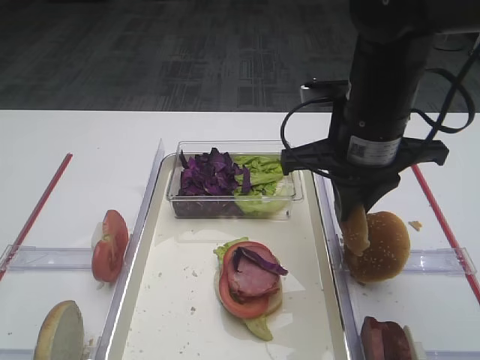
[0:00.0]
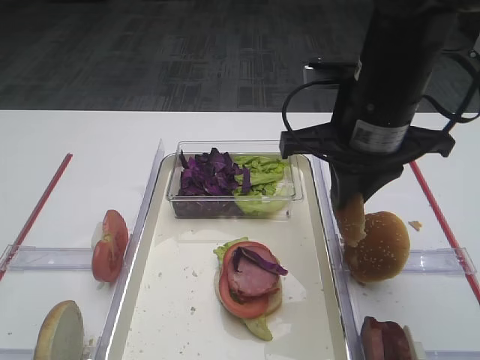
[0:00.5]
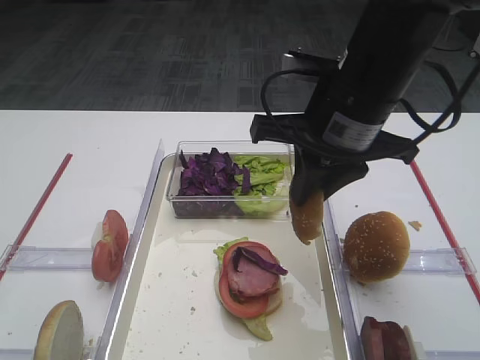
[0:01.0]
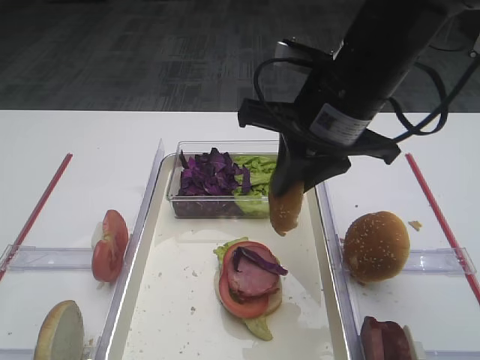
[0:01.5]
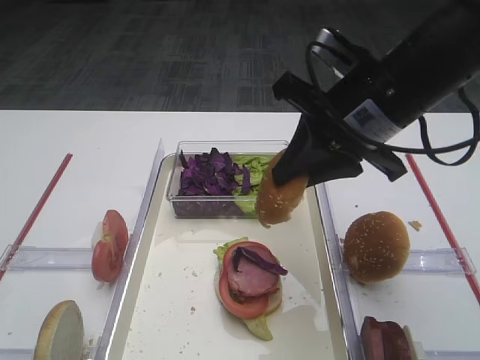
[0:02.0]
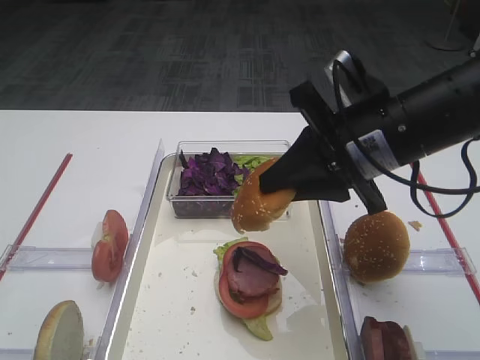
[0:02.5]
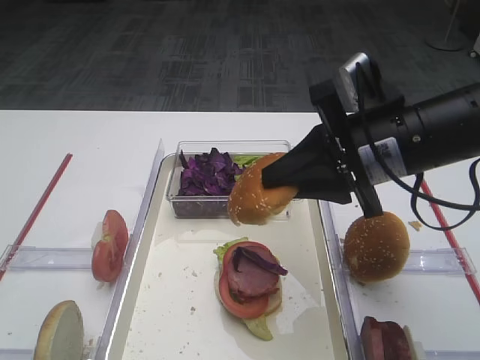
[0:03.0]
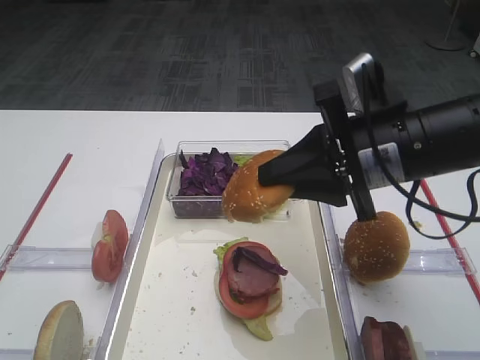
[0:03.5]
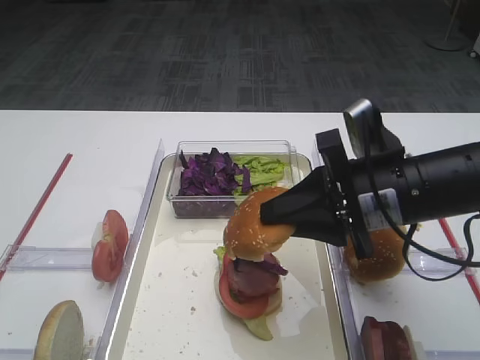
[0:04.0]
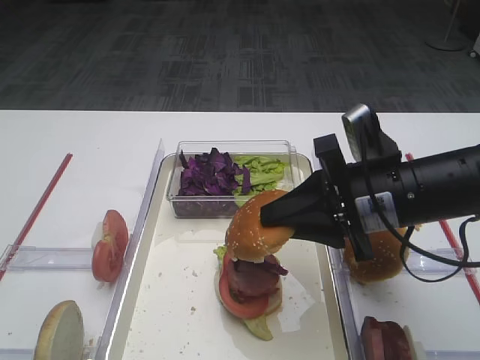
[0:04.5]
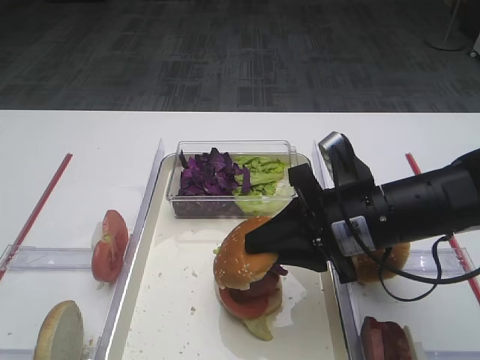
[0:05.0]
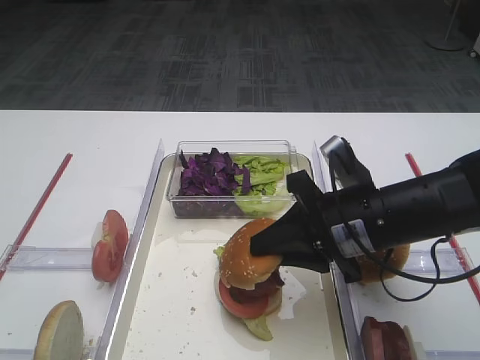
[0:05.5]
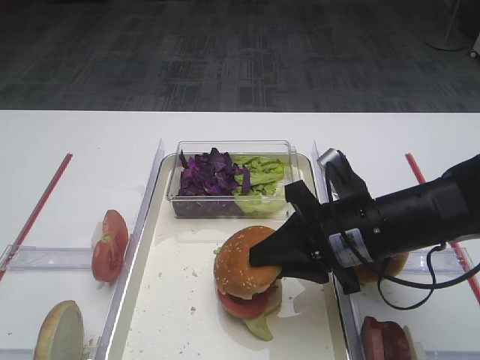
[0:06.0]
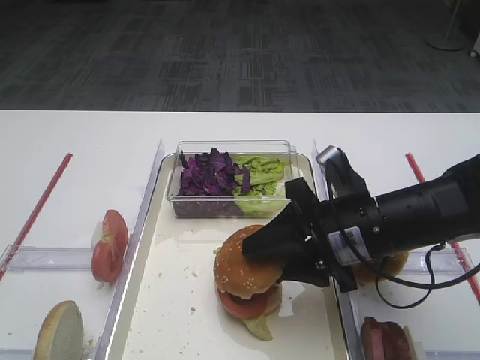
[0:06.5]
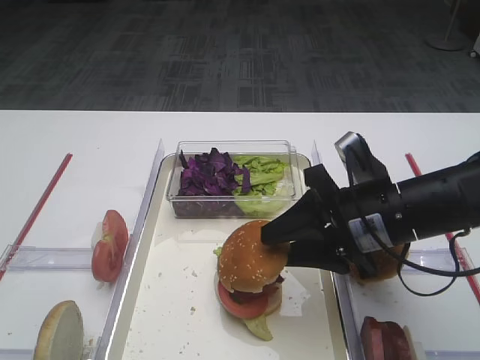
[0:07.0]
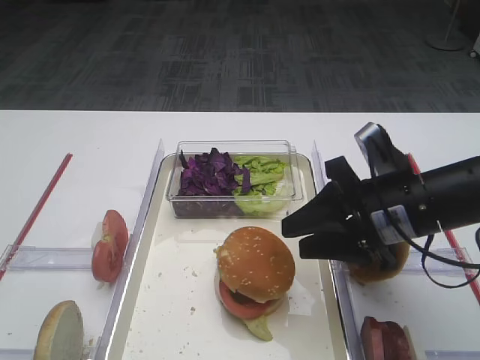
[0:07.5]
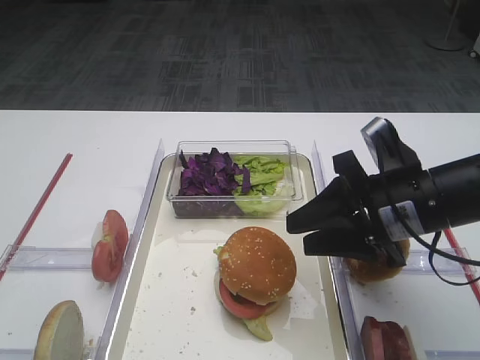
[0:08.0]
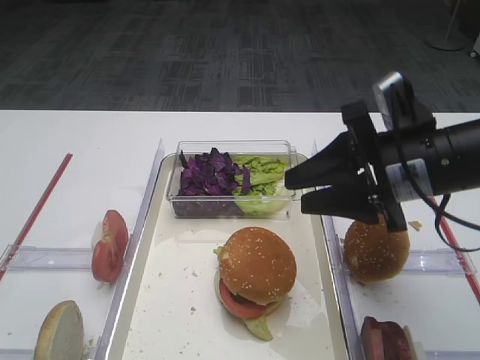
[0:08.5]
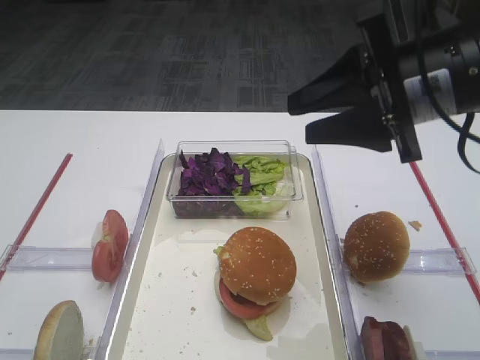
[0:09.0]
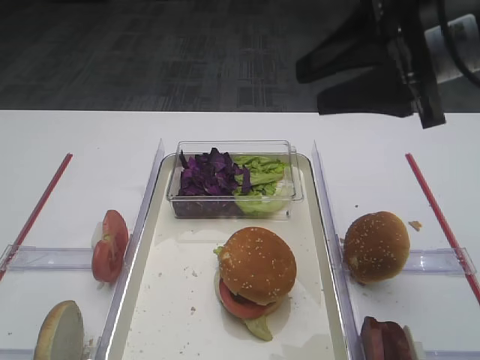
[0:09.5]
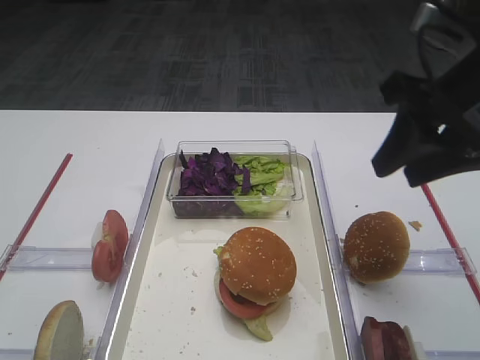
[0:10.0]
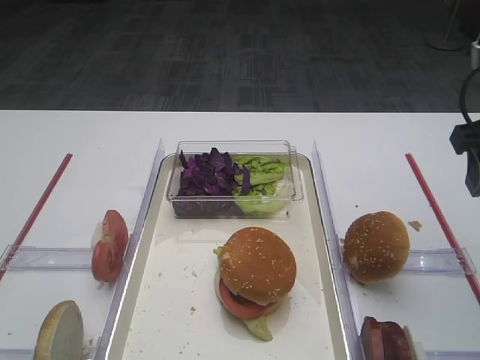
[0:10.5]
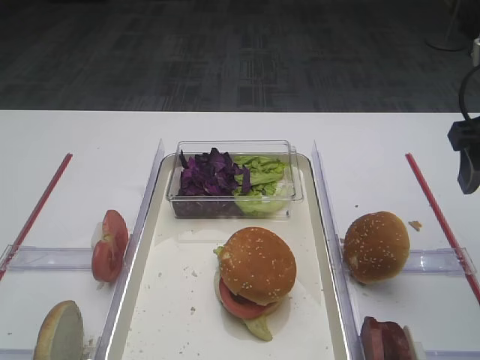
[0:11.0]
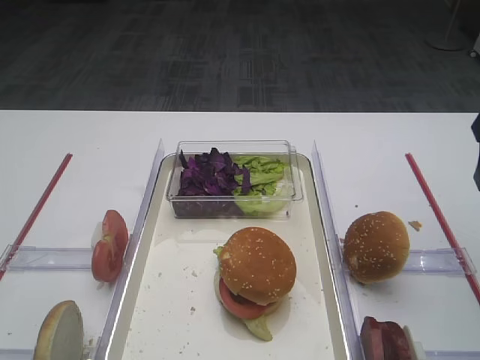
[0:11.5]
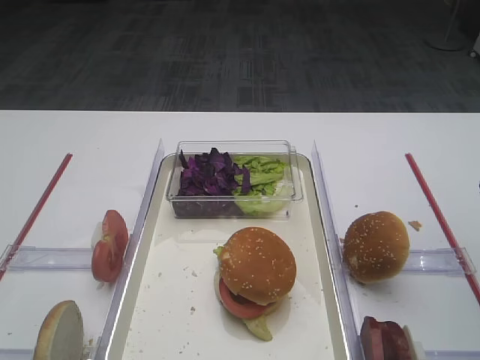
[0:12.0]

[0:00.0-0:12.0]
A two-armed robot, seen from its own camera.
Step, 0:00.0 to 0:08.0: Place the hamburger lid on the purple cabbage with the right gripper.
0:02.0 to 0:04.0: The right gripper heads downward, covering some 10 cm.
0:04.0 to 0:06.0: The right gripper heads downward, covering roughly 5 cm.
0:06.0 to 0:08.0: The right gripper ends up about 5 cm from where it was, and opens up.
0:08.0 to 0:10.0: The right gripper travels upward by some 15 cm.
0:10.0 to 0:12.0: The right gripper shifts some 10 cm to the right, and opens.

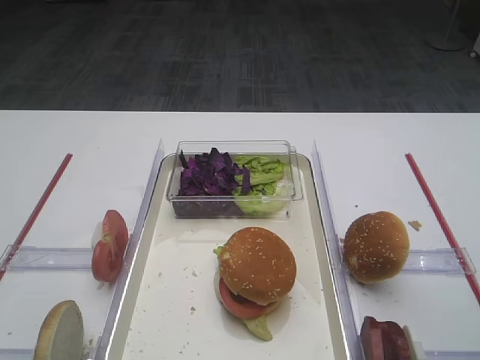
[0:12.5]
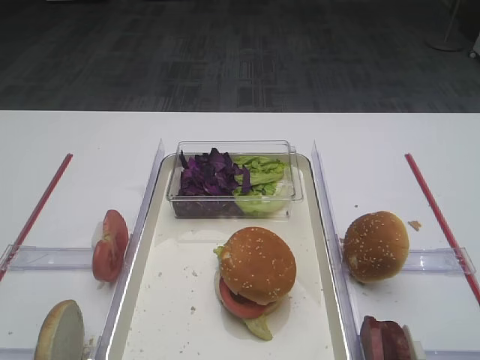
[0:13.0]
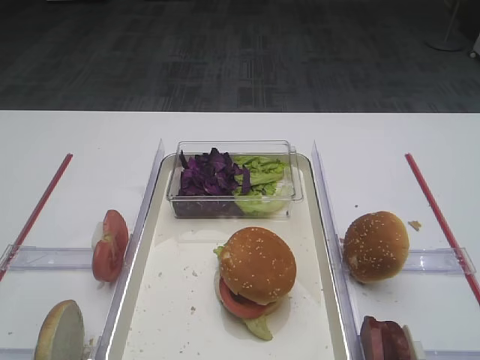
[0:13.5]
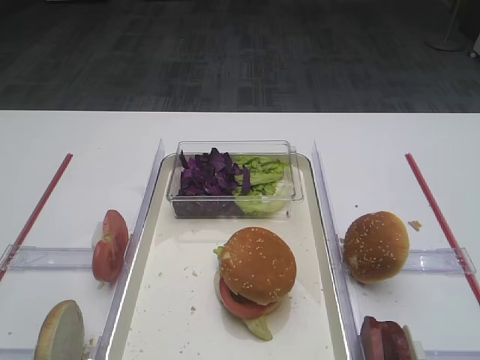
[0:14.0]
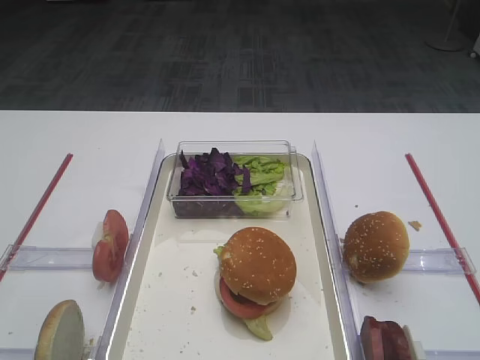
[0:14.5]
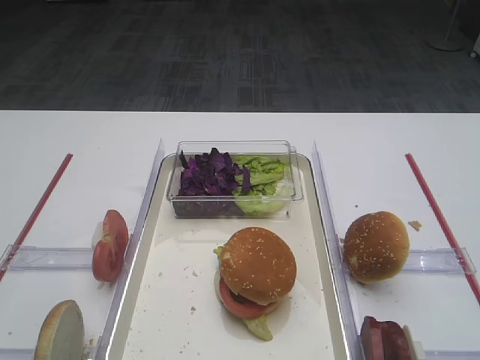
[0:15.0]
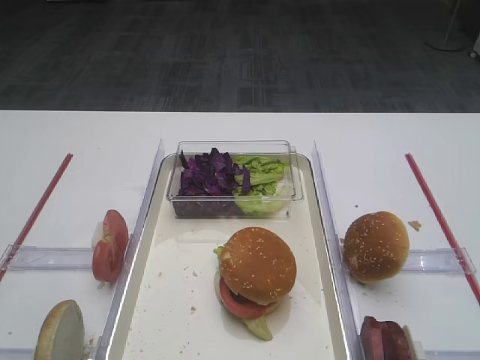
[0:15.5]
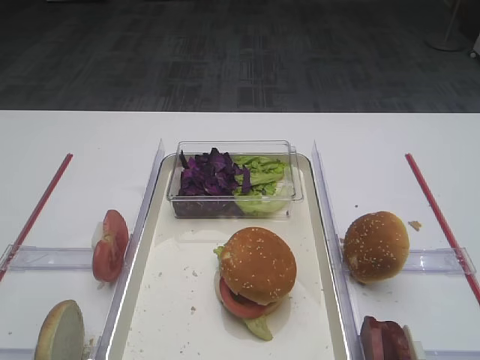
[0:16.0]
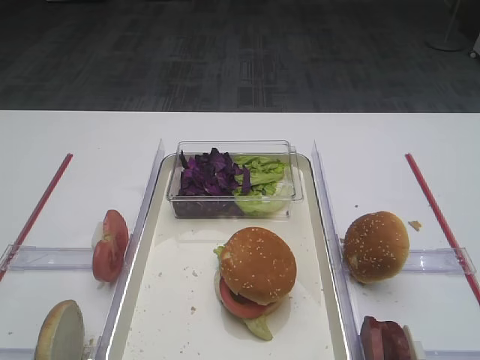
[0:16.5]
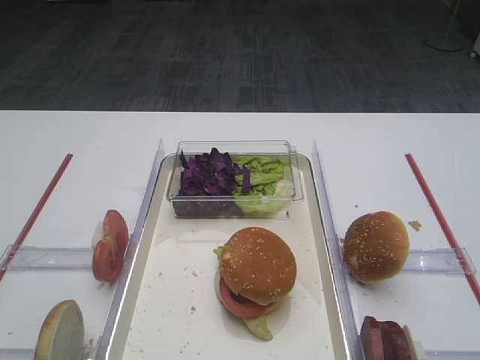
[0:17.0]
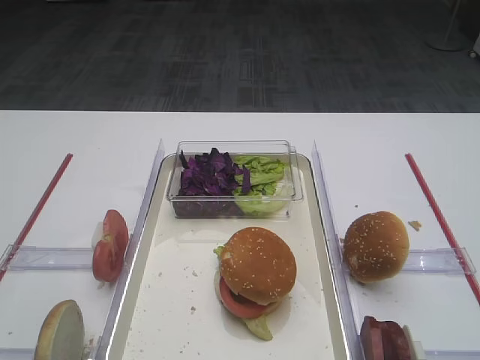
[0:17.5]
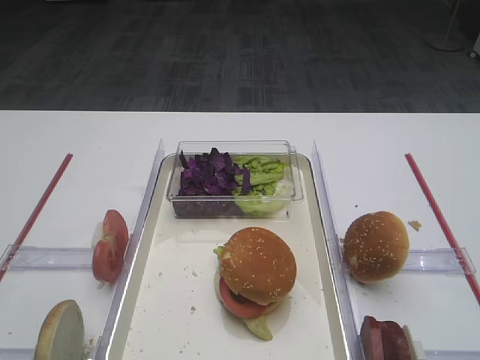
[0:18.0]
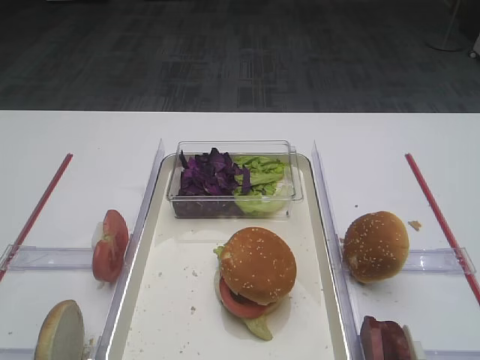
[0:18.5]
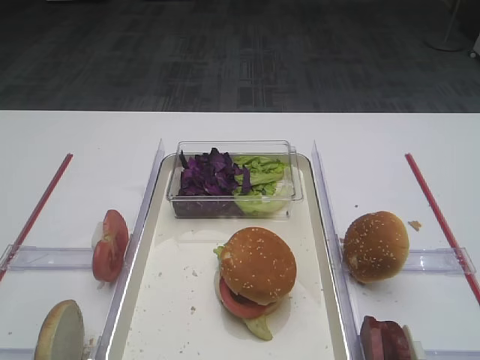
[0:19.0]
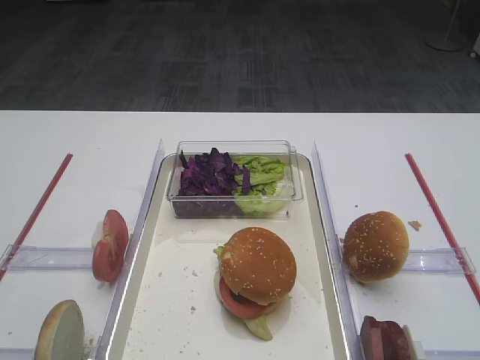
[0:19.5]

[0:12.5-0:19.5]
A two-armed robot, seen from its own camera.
0:14.5 to 0:17.5: The two grippers keep their place.

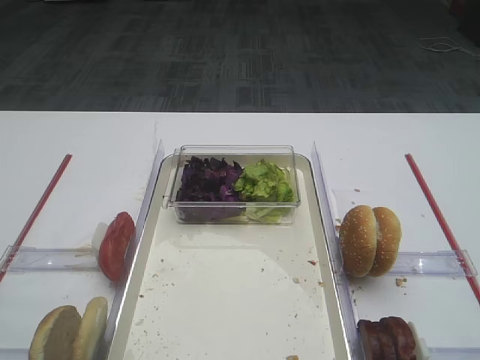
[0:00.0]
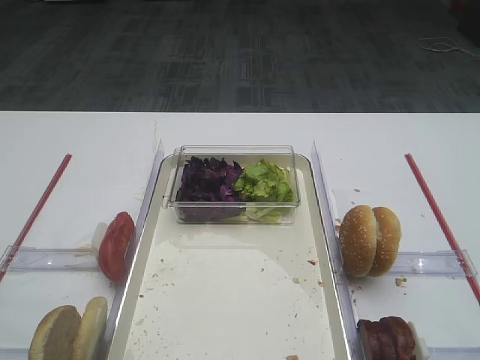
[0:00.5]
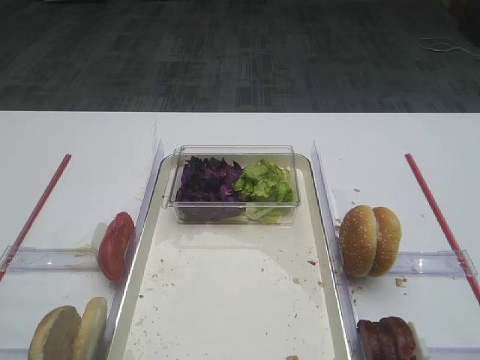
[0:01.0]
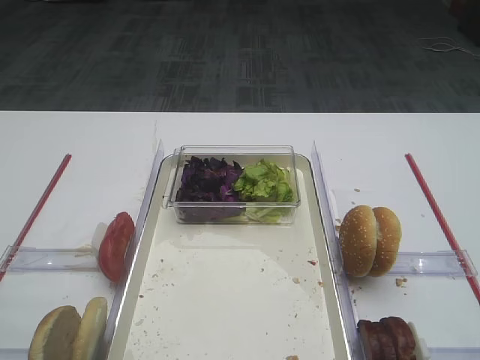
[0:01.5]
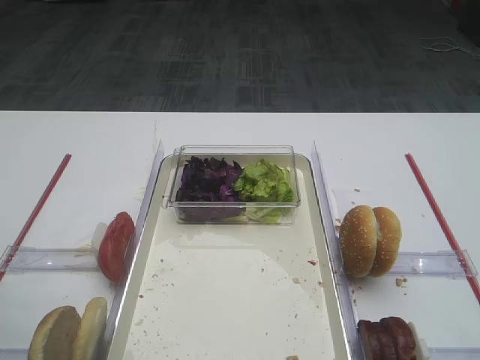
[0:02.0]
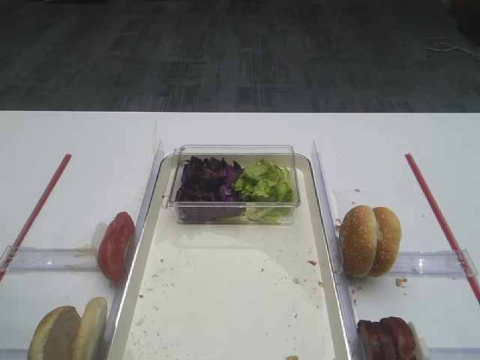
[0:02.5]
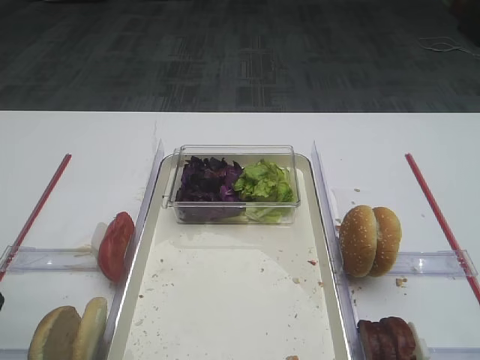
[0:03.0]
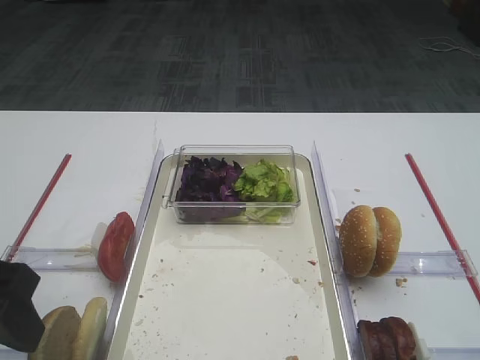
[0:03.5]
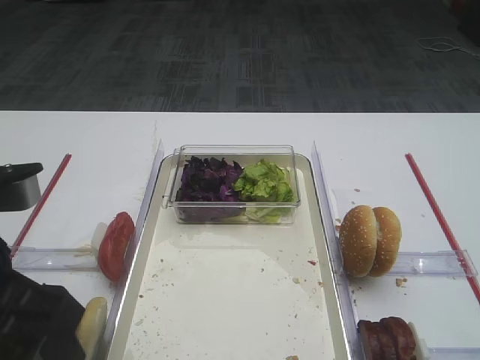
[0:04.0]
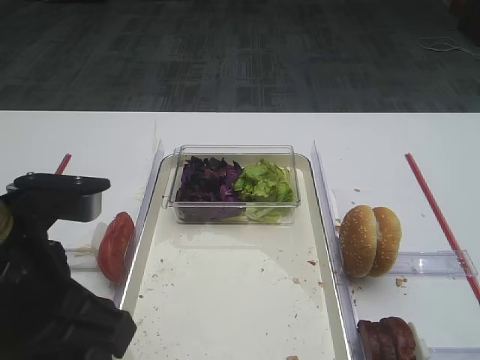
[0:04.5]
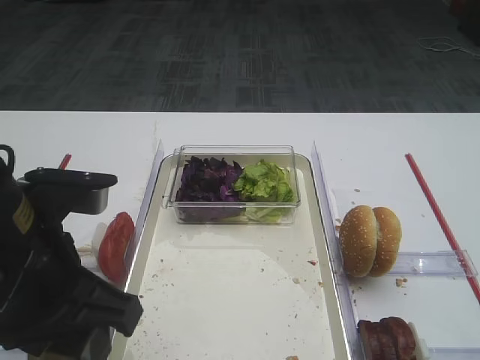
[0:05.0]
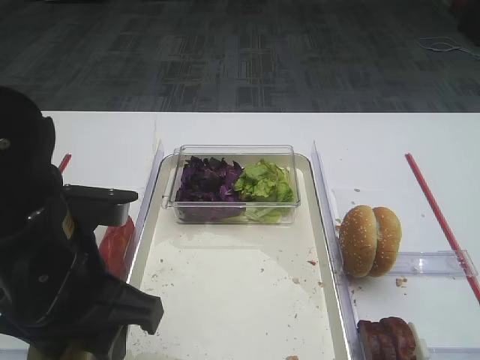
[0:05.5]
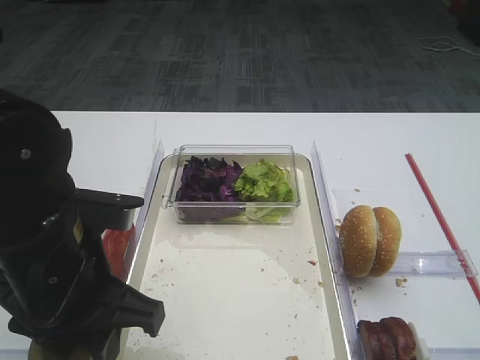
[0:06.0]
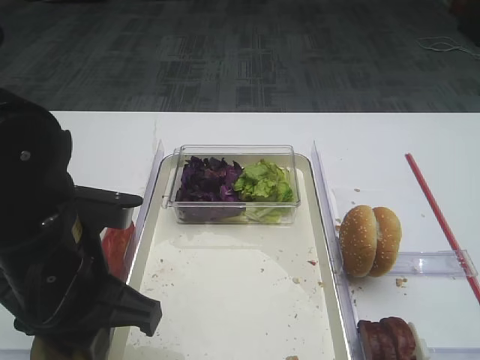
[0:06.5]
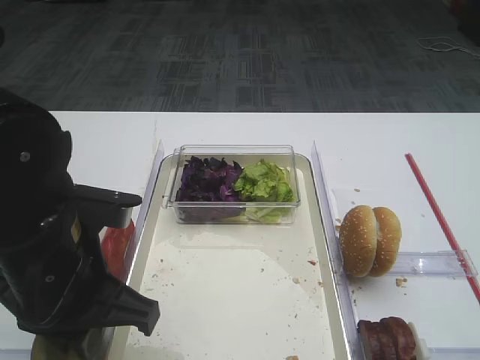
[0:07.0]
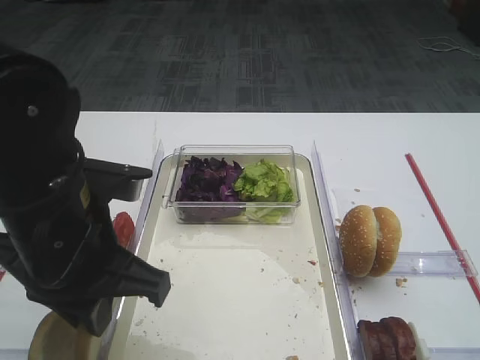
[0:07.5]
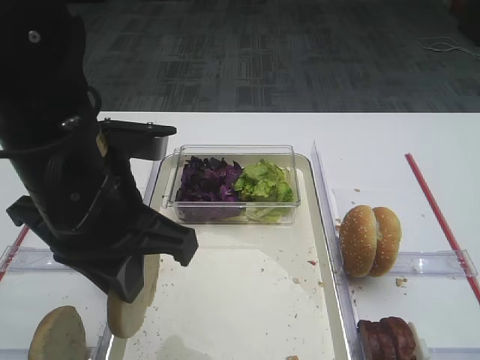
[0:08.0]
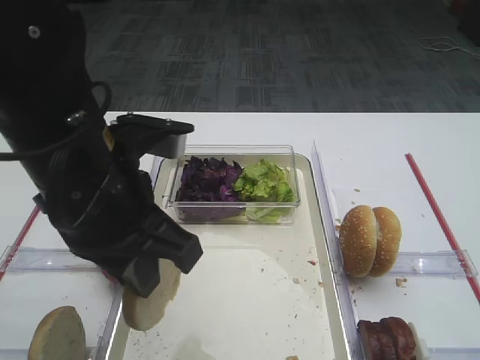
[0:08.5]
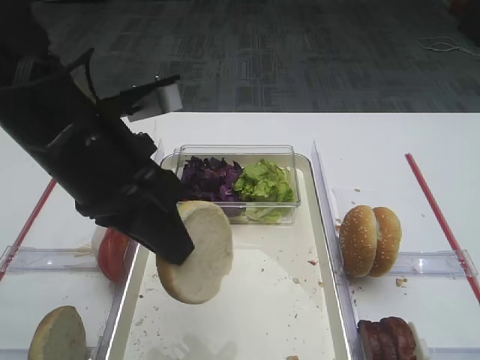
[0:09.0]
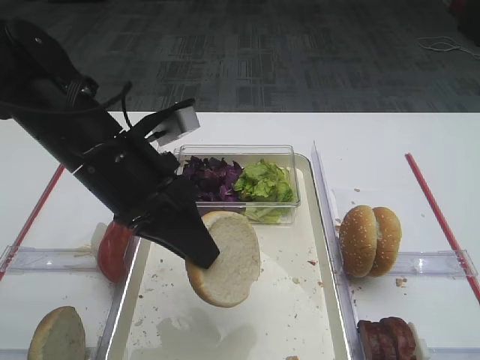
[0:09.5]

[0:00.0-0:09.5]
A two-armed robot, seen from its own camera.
Step, 0:00.0 to 0:07.5: Pick up the bread slice with the left gripper.
0:02.0 to 0:04.0: The left gripper shifts some 10 cm to the right.
0:04.0 to 0:05.5: The left gripper changes place by approximately 10 cm.
0:05.5 to 0:07.5: The left gripper closes up.
0:07.5 to 0:09.5: The left gripper is displaced forward by approximately 5 cm.
